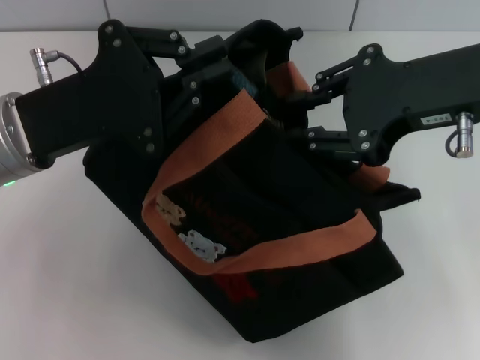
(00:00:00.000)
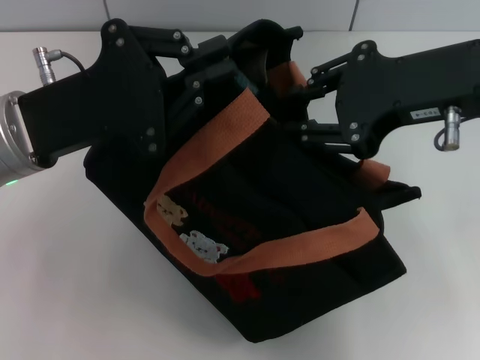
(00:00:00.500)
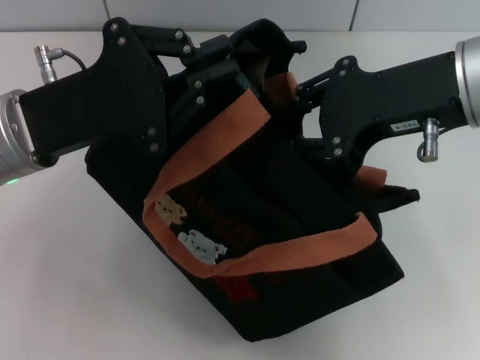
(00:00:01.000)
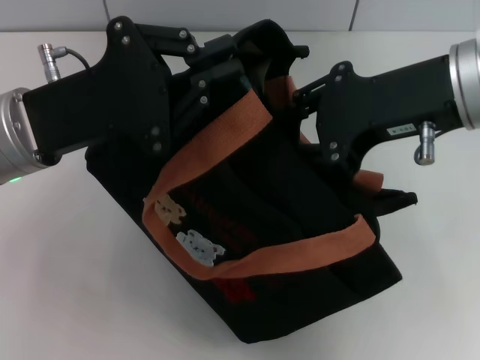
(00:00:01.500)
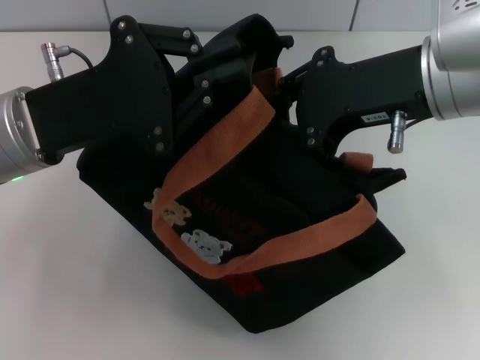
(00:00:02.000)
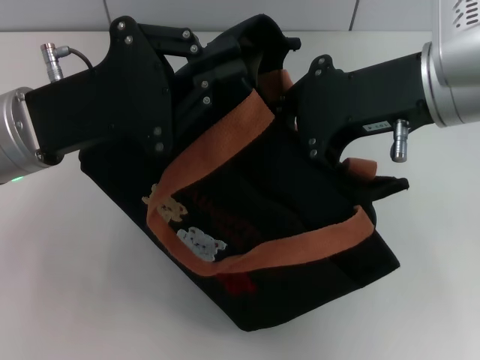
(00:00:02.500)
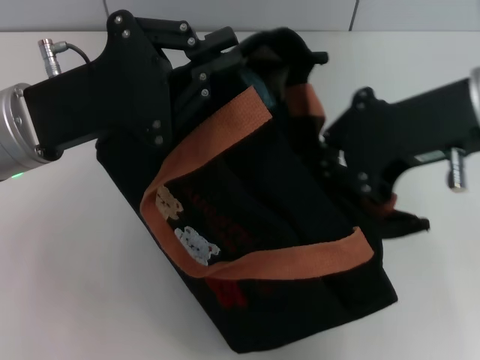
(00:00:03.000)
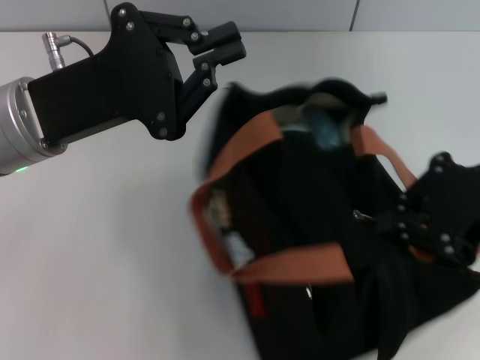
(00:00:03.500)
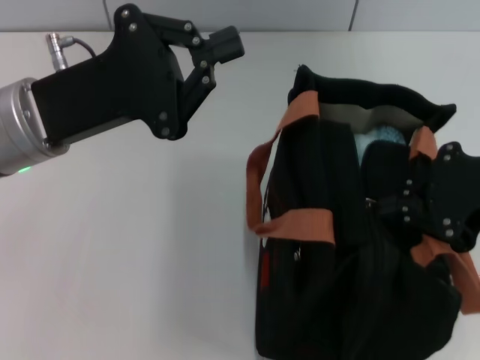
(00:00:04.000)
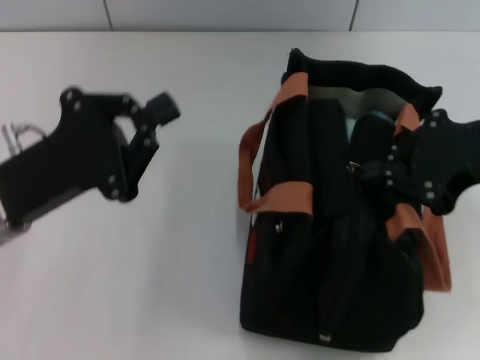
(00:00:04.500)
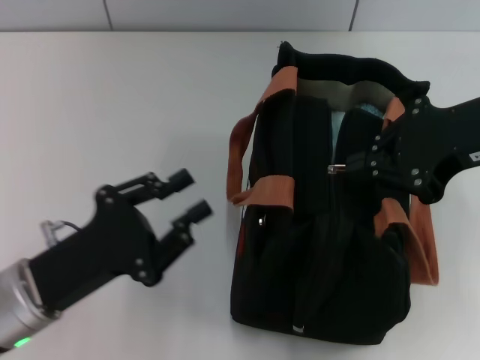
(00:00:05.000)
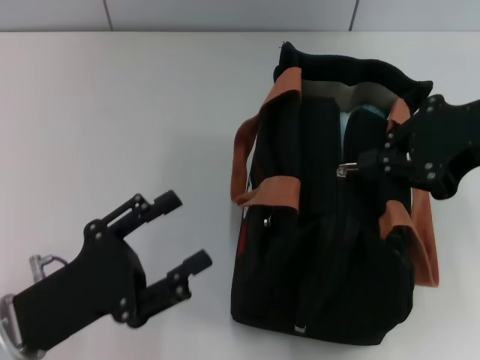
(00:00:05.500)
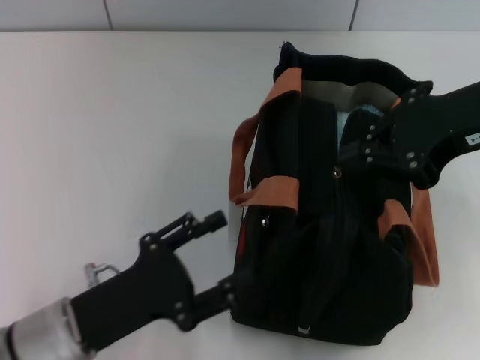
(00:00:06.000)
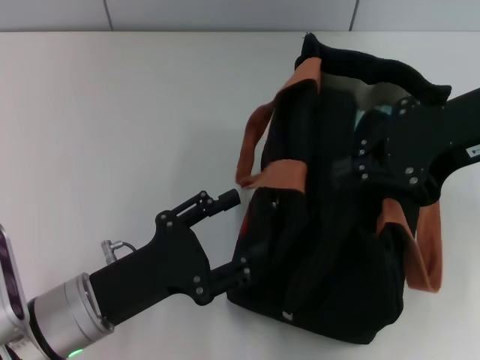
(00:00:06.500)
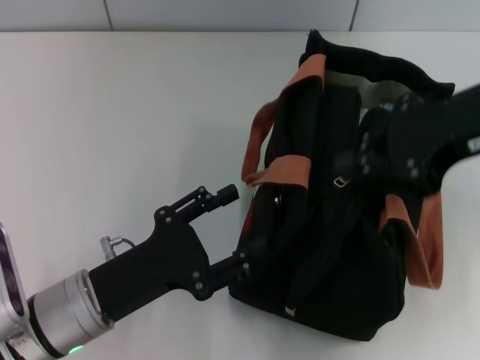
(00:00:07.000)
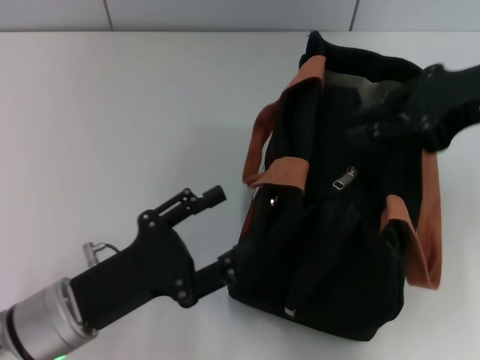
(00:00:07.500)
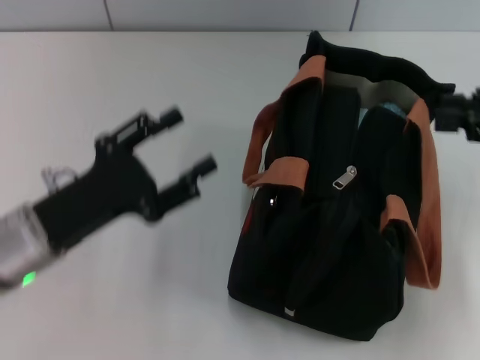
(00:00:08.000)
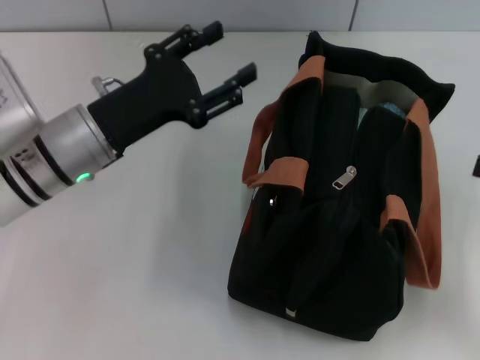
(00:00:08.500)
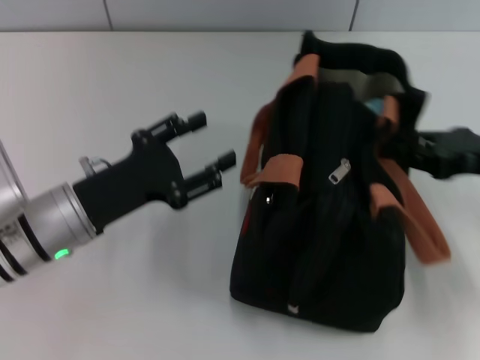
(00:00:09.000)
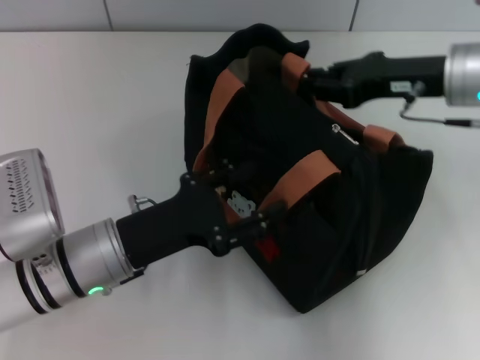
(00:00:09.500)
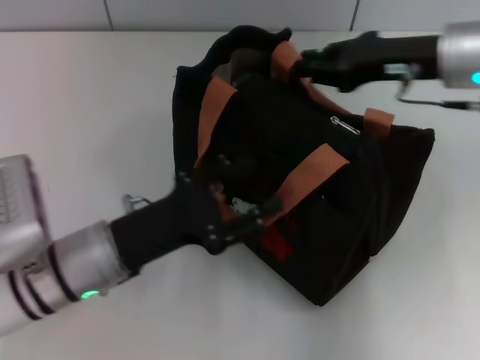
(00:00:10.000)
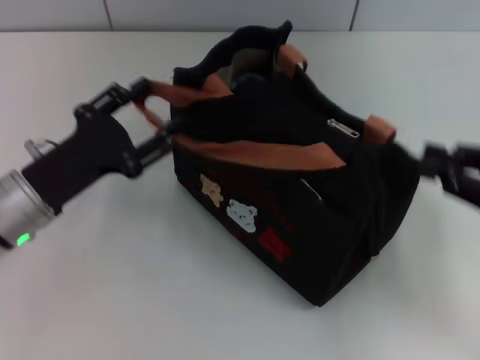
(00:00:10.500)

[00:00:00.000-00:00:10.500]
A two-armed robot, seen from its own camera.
Step, 00:00:04.500 to 00:00:08.000: Pull open the zipper with your right hand.
00:00:00.000 to 00:00:02.000: The grippers make only small movements.
00:00:02.000 to 00:00:04.000: The right gripper goes roughly 10 cm to the right, and closes its fingers.
00:00:04.000 to 00:00:06.500: The left gripper shifts roughly 15 cm downward and backward, and opens. The right gripper moves some 5 cm.
00:00:06.500 to 00:00:08.500: The left gripper heads forward and upward, covering about 15 cm, while the right gripper is displaced to the right, downward and backward by roughly 20 cm.
00:00:08.500 to 00:00:10.500: The right gripper goes forward and returns, roughly 15 cm each way, while the left gripper travels to the left and backward by approximately 5 cm.

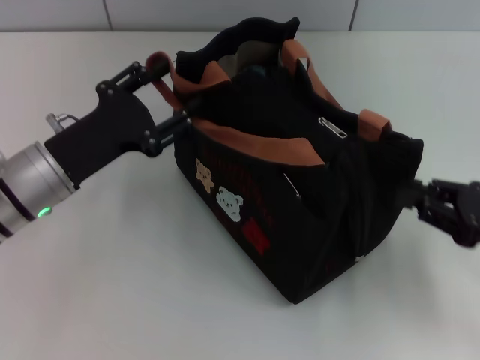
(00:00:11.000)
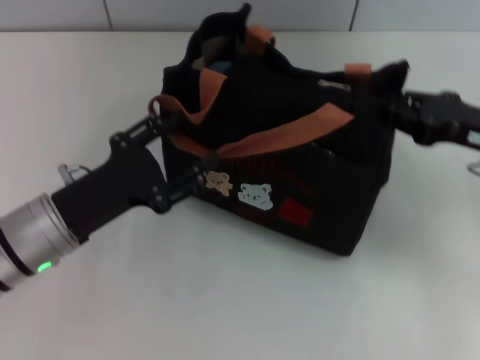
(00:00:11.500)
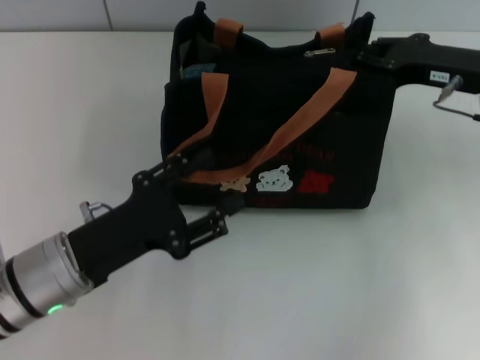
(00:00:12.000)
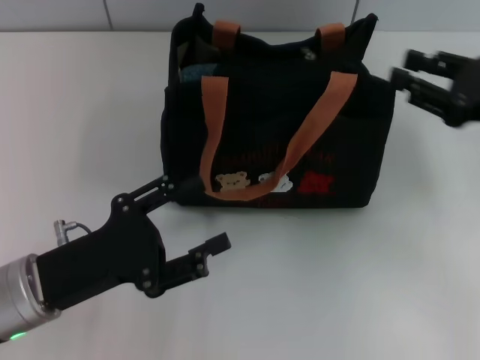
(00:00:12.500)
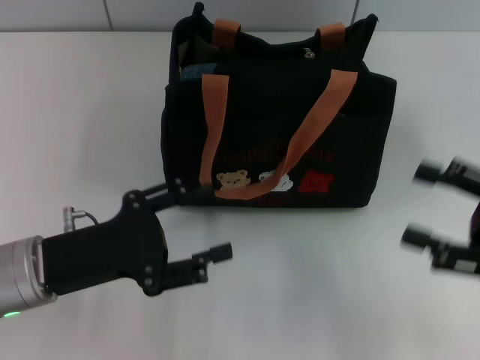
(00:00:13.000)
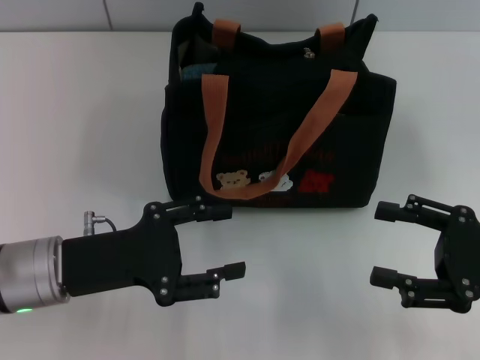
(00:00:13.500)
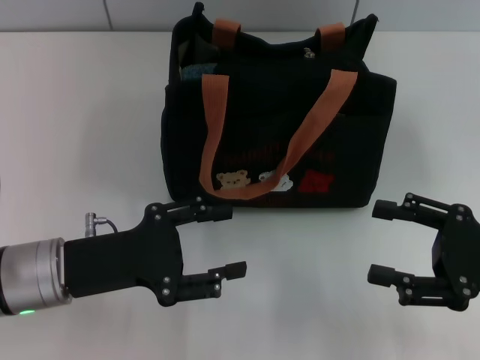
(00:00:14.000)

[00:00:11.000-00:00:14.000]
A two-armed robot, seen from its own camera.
00:00:11.000 to 00:00:12.500: The right gripper heads forward and upward, covering roughly 10 cm; the left gripper travels backward by roughly 10 cm.
00:00:12.500 to 00:00:14.000: The right gripper moves backward, roughly 10 cm, and opens.

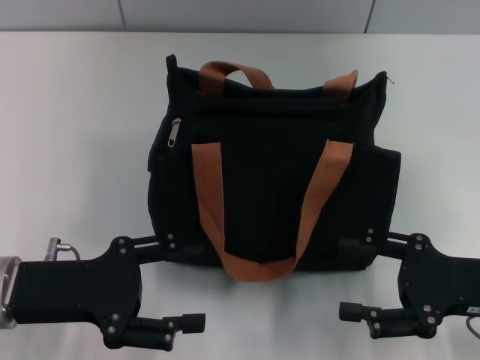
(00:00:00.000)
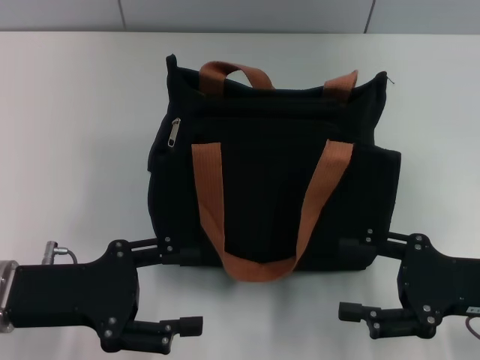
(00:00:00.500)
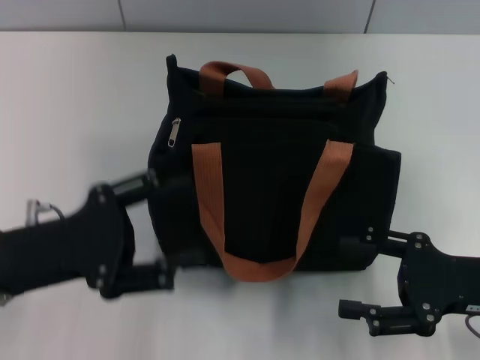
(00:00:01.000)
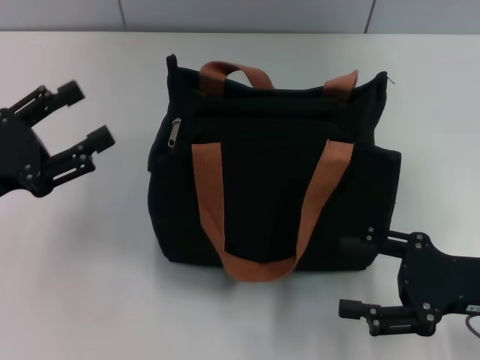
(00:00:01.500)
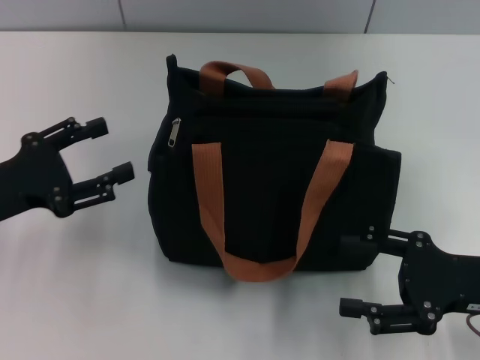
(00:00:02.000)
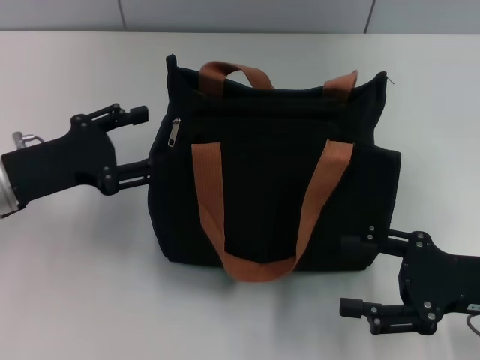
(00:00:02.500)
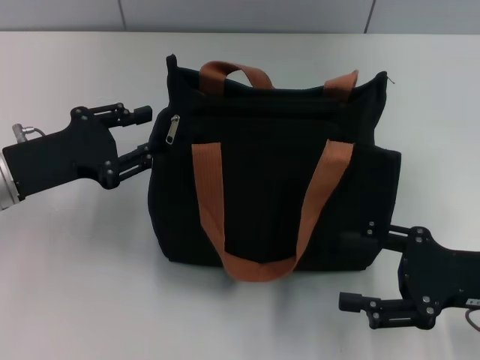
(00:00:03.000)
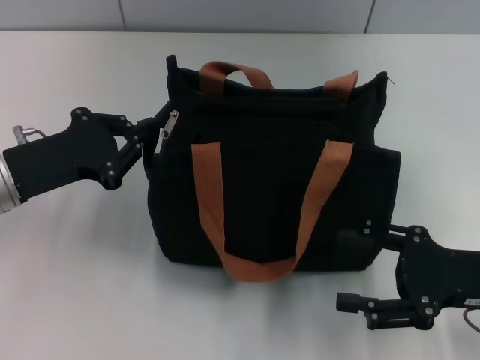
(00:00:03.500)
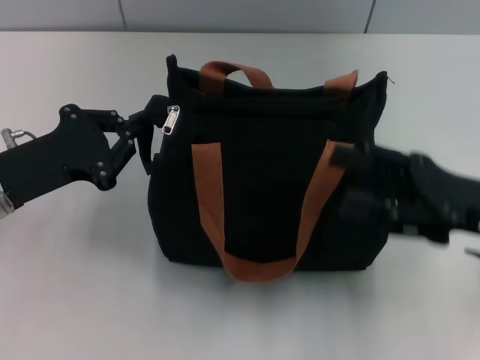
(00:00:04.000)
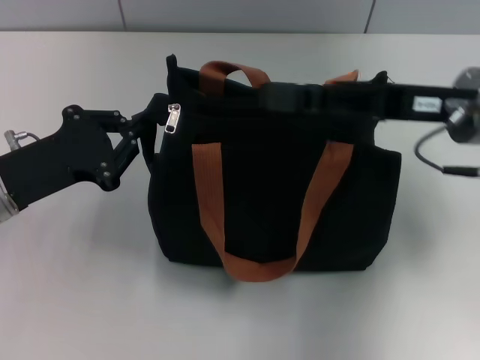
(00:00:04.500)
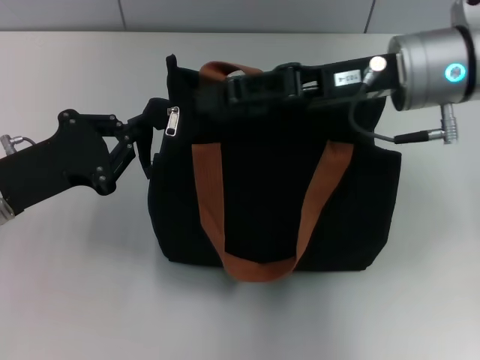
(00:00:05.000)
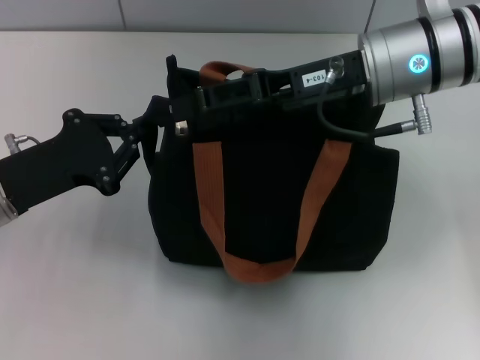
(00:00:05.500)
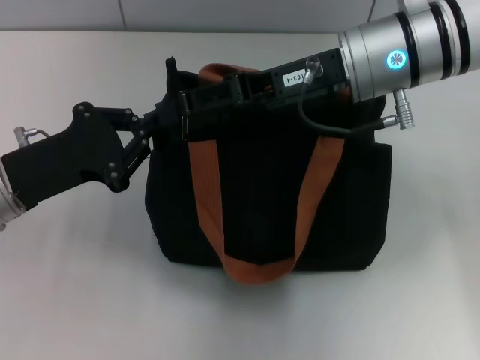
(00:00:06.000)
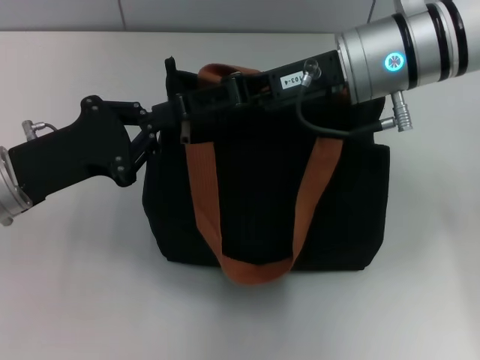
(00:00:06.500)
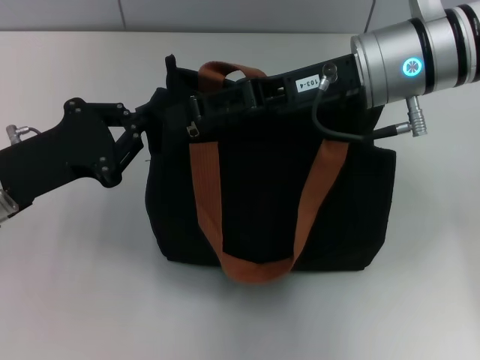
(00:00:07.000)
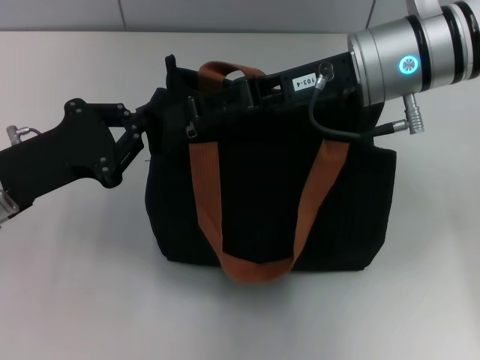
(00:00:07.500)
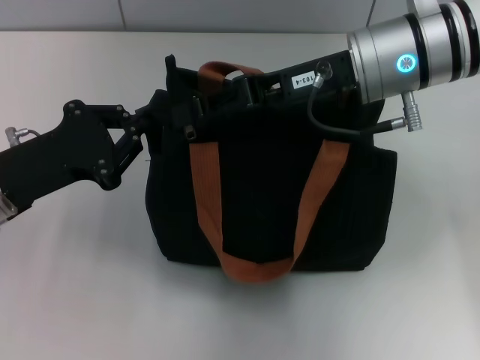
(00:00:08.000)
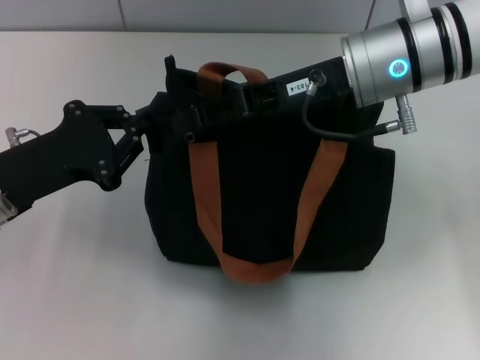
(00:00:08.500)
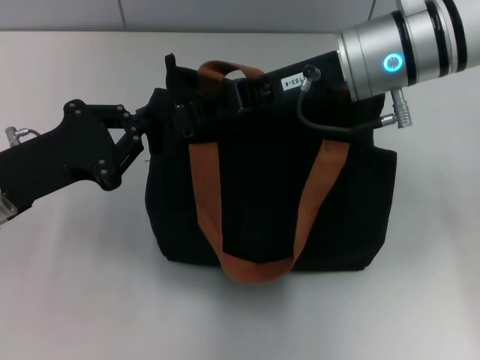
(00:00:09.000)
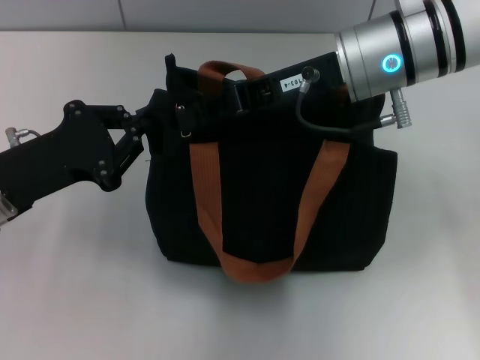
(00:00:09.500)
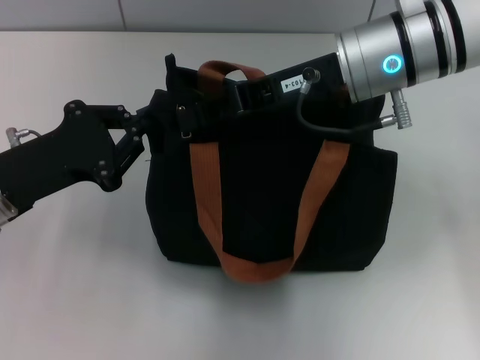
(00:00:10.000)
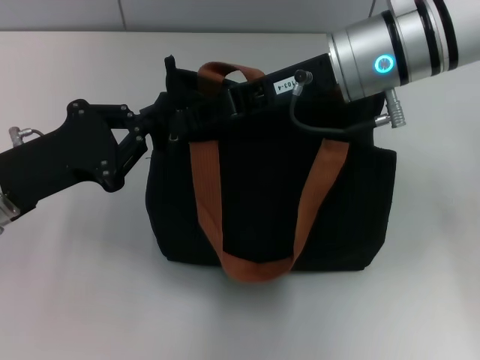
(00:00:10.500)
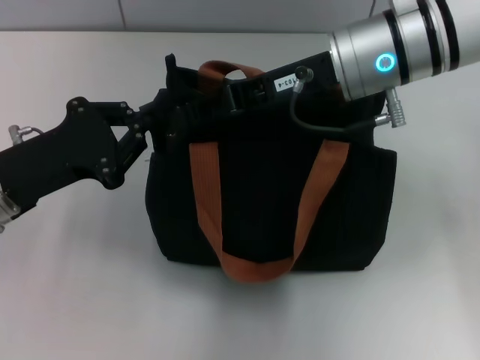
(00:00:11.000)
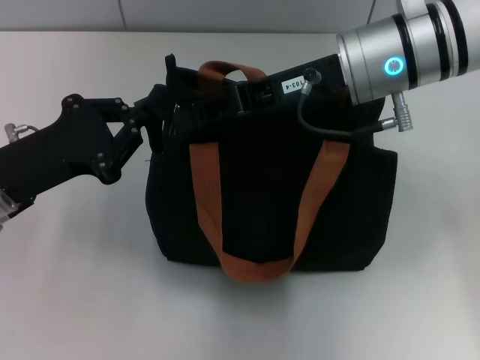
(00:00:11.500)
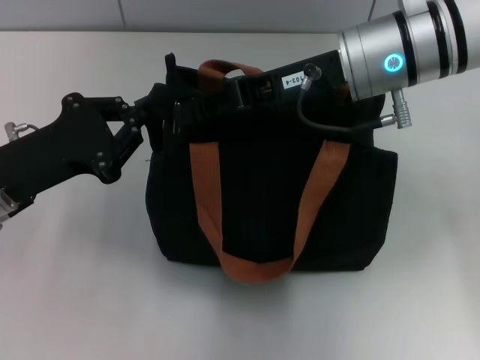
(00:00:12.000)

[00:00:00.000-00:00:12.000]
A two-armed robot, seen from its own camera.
00:00:00.000 to 00:00:02.000: The left gripper shifts about 5 cm to the left.
00:00:02.000 to 00:00:04.000: The left gripper closes its fingers. The right gripper changes place by some 5 cm.
00:00:04.000 to 00:00:06.000: The right gripper shifts some 20 cm to the left, forward and upward.
00:00:06.000 to 00:00:08.000: Neither gripper changes place.
00:00:08.000 to 00:00:10.000: The right gripper closes its fingers.
00:00:10.000 to 00:00:12.000: Both grippers stay put.
